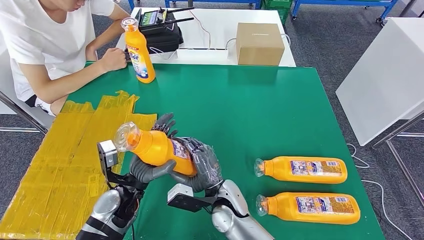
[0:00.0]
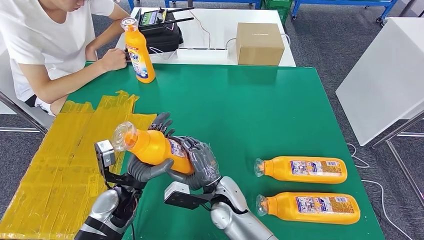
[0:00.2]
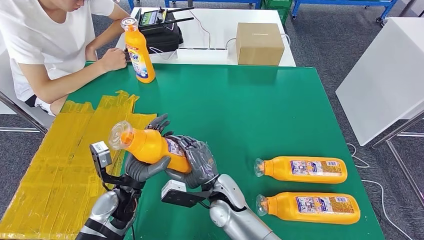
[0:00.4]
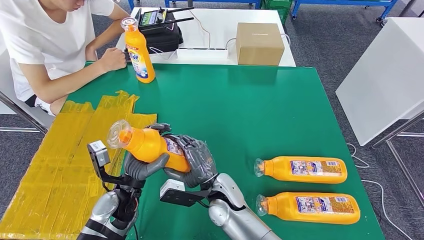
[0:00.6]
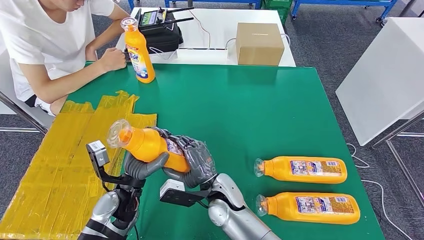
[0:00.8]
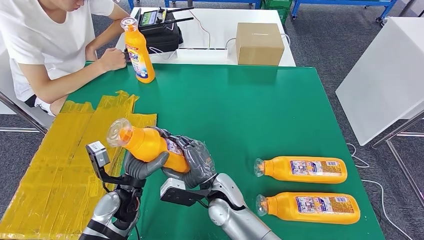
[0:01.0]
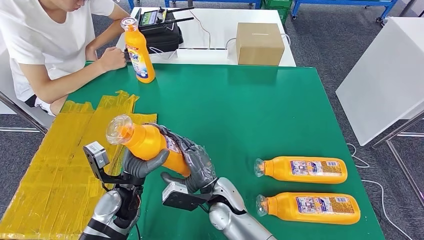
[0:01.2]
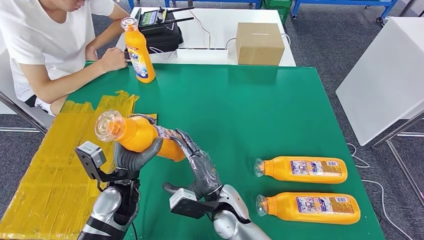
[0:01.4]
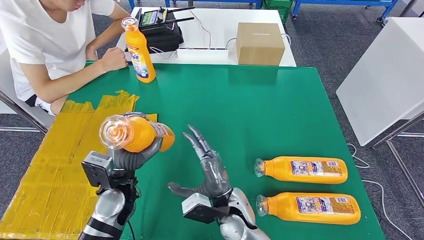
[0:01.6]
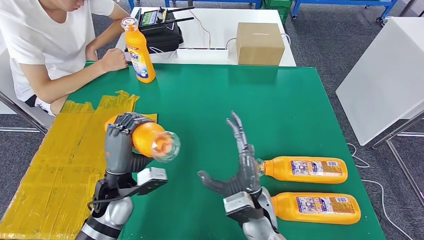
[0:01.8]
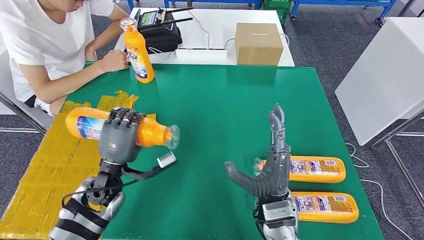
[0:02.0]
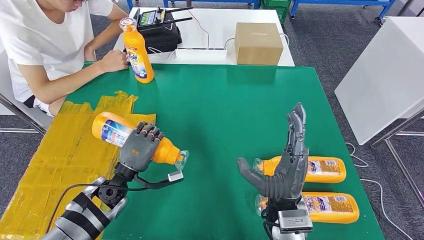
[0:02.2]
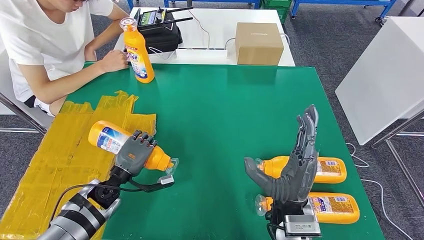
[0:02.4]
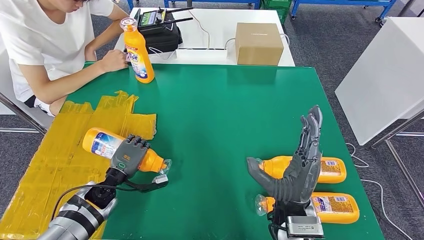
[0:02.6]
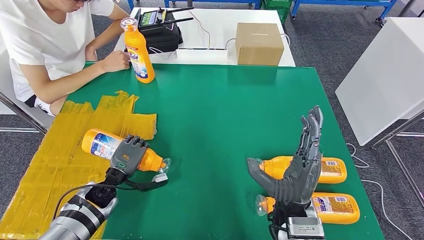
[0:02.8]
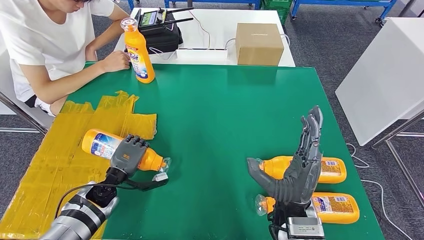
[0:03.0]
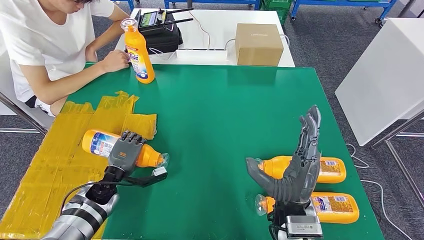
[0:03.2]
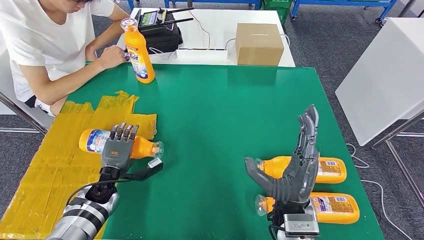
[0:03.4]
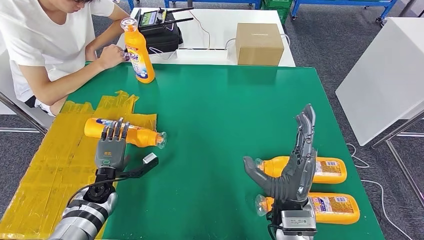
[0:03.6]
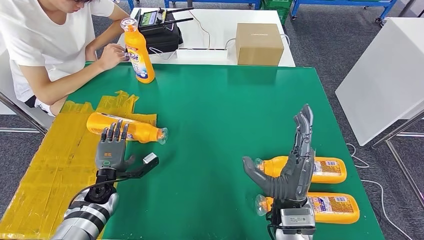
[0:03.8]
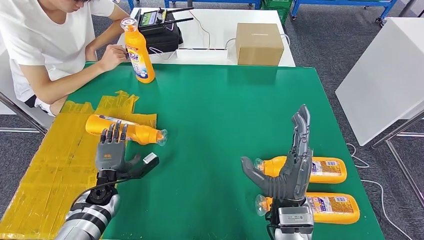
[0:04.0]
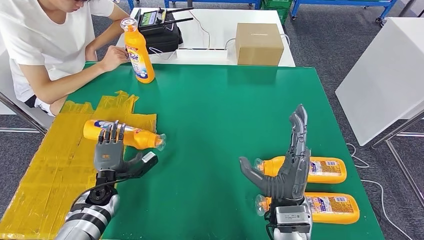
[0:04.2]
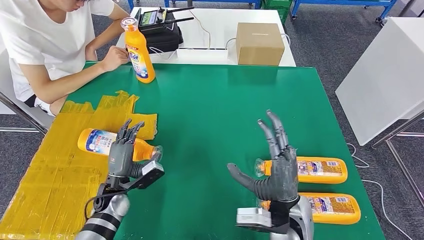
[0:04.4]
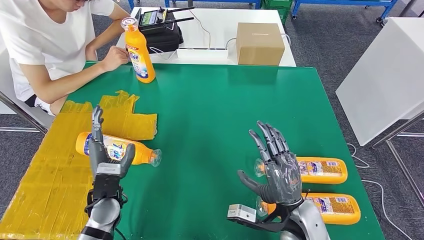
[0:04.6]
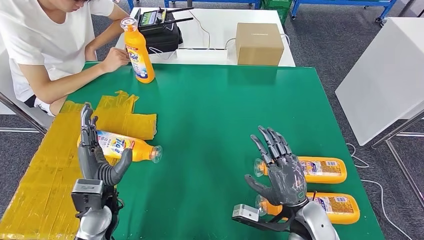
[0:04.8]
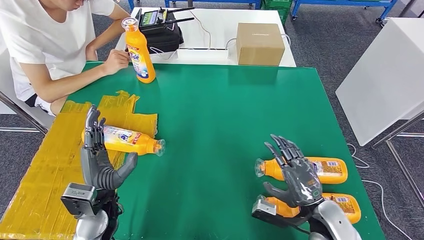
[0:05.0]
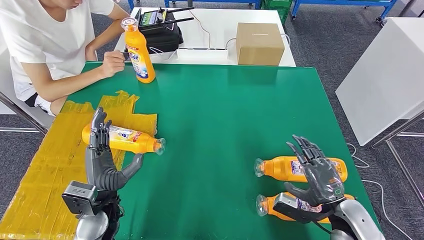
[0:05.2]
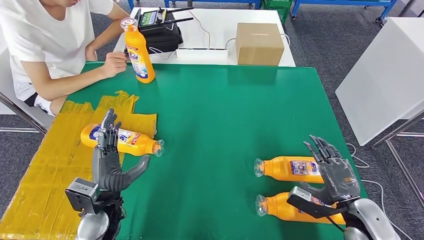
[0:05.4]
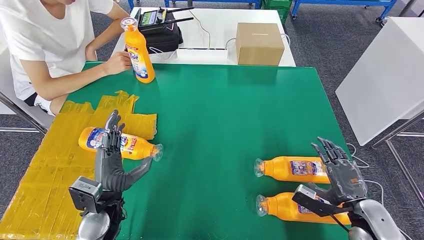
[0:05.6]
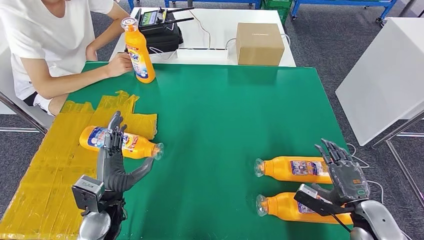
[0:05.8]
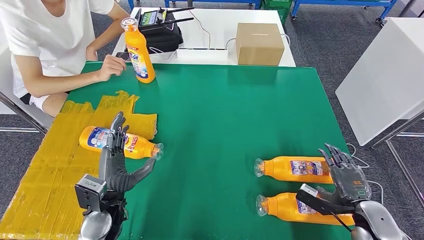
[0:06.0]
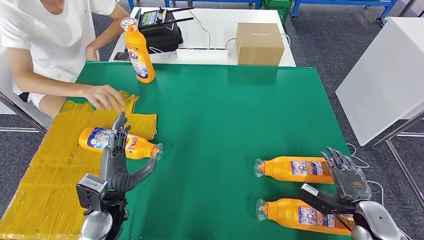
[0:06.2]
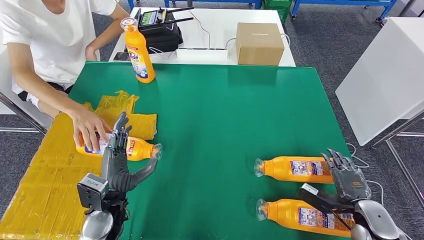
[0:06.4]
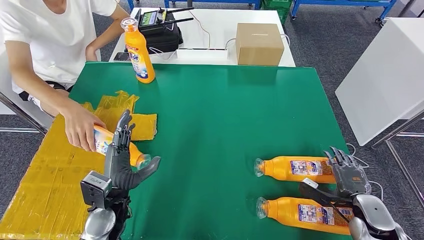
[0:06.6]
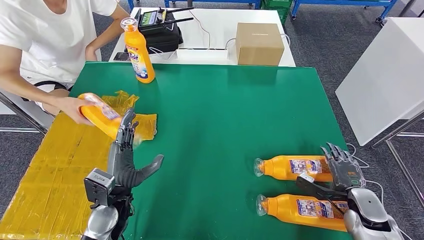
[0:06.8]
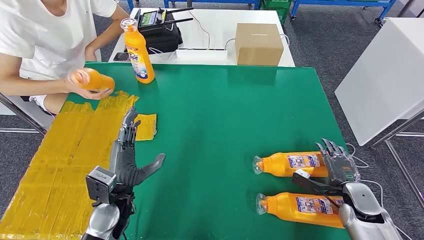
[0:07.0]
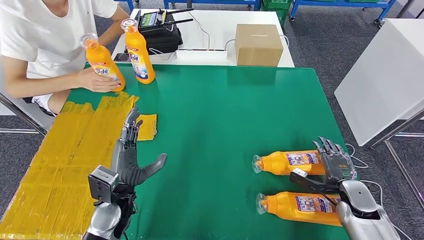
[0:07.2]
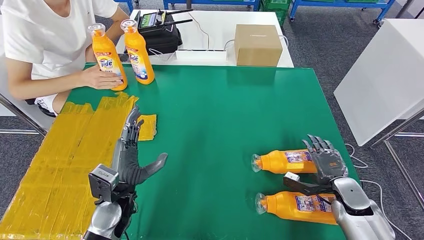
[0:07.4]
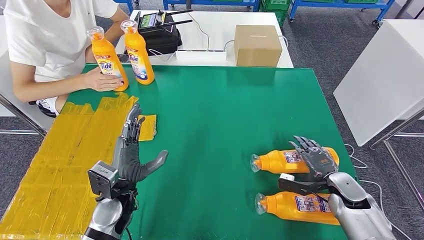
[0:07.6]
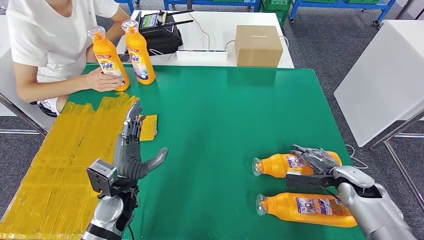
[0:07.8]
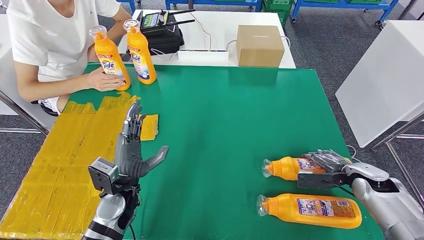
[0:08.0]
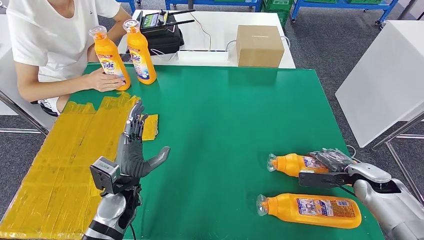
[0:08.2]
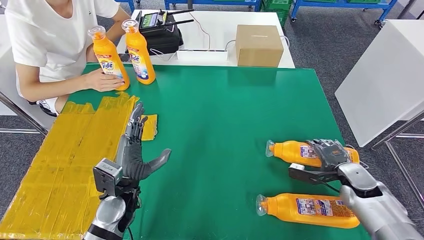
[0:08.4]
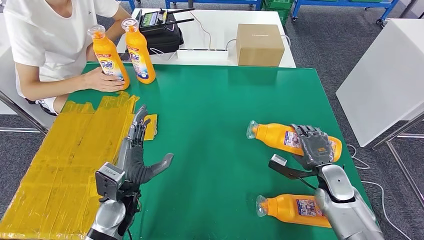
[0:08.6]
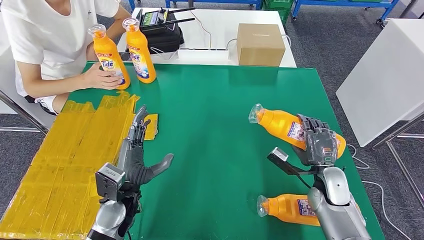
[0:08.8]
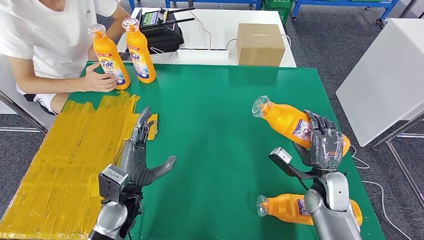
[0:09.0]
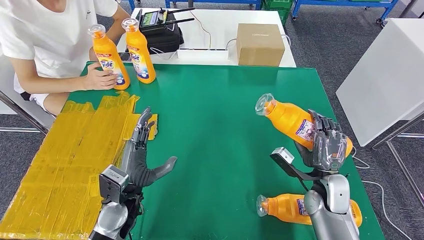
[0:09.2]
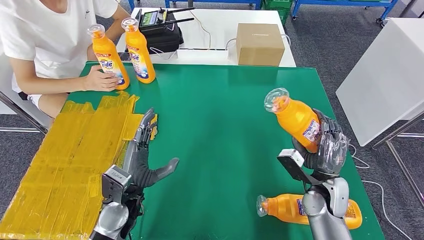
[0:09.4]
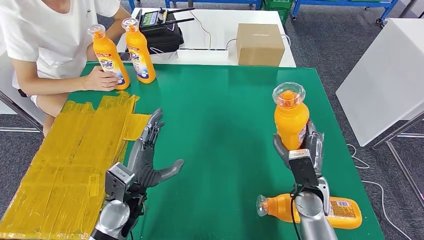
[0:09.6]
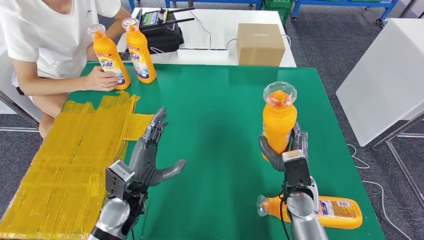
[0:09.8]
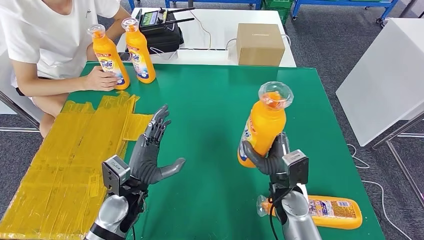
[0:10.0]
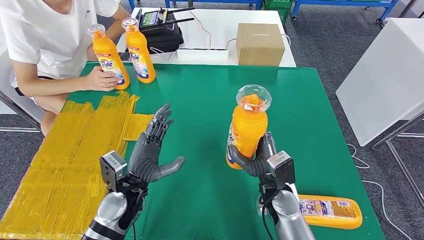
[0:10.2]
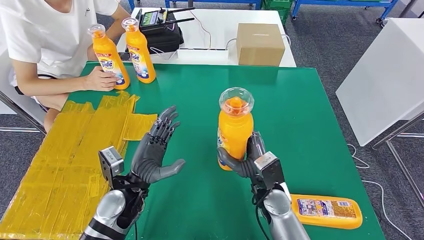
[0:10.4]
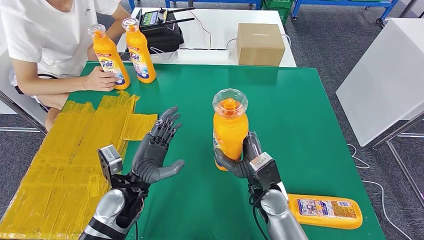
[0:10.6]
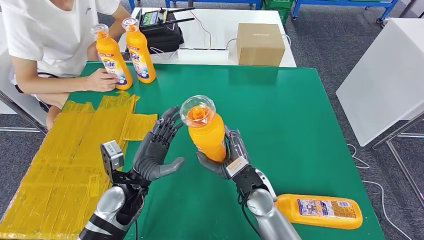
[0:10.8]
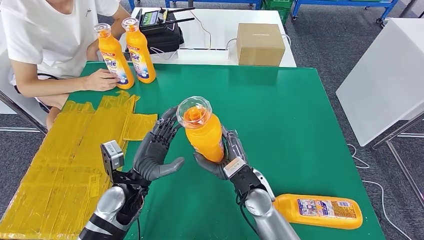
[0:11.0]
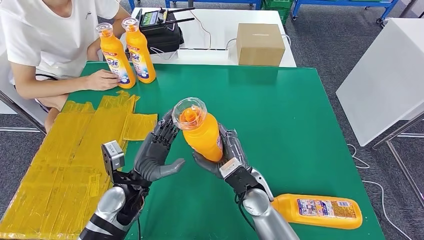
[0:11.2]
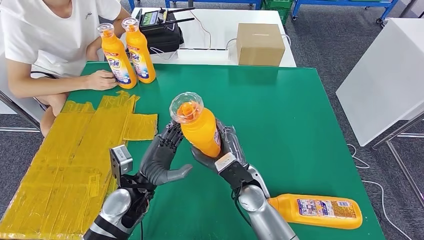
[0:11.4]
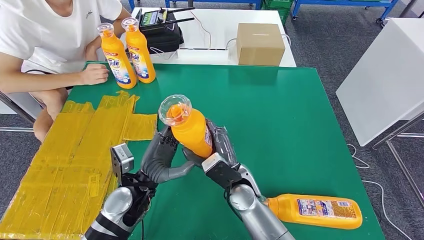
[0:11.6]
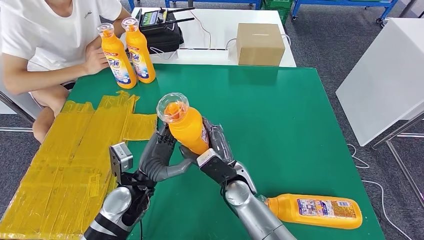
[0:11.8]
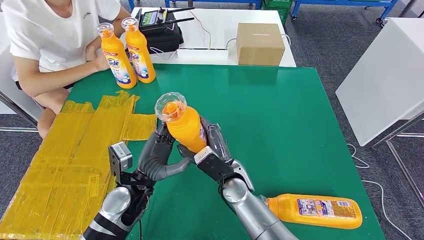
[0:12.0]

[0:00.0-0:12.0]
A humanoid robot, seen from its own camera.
Step, 0:00.0 to 0:02.8: Flip the fast-moving consumer goods bottle to the front side.
Step, 0:03.8 to 0:09.8: Pick up the fast-moving consumer goods bottle from the table.
0:01.6 to 0:03.0: The left hand moves downward and to the left, some 15 cm. The right hand heads to the right and upward, covering approximately 15 cm.
0:04.4 to 0:06.0: The left hand shifts some 10 cm upward and backward. Meanwhile the right hand moves to the right, roughly 20 cm.
0:09.0 to 0:10.4: The right hand is displaced to the left by some 15 cm.
0:10.4 to 0:12.0: The right hand shifts some 10 cm to the left.

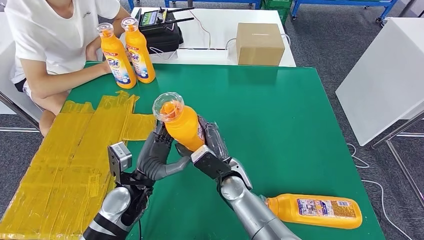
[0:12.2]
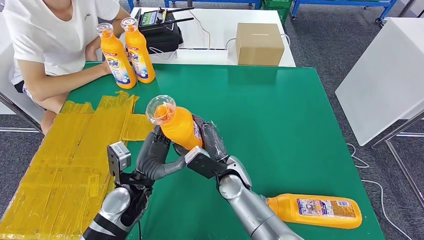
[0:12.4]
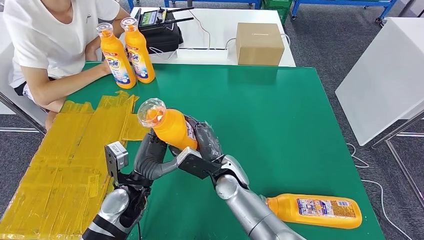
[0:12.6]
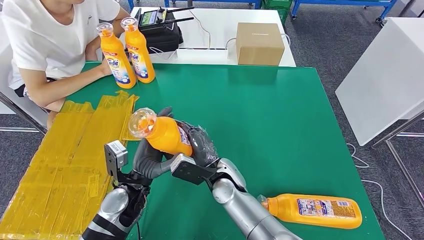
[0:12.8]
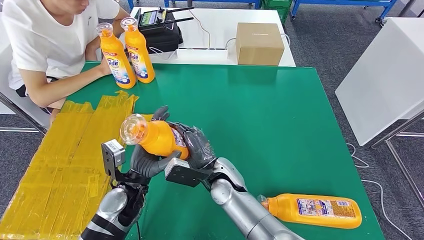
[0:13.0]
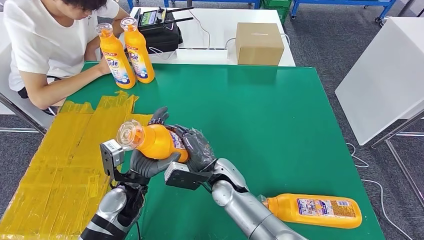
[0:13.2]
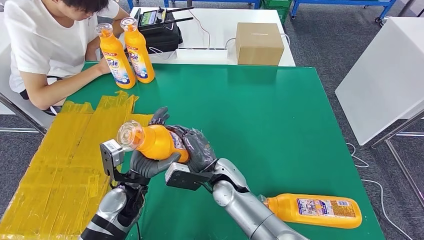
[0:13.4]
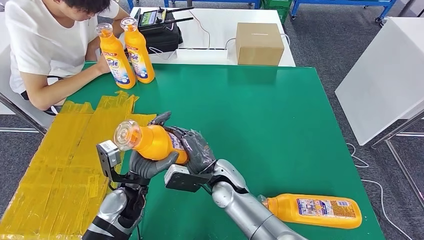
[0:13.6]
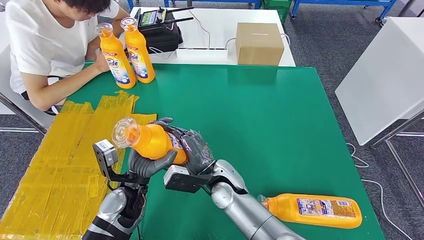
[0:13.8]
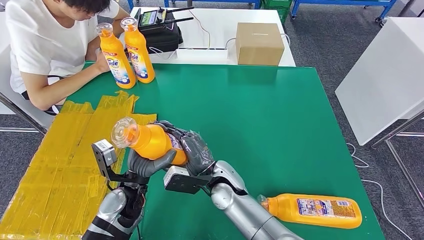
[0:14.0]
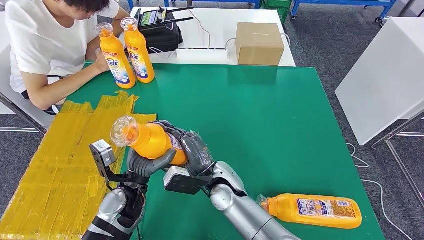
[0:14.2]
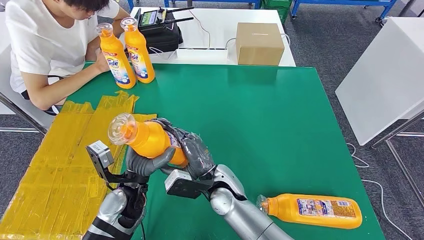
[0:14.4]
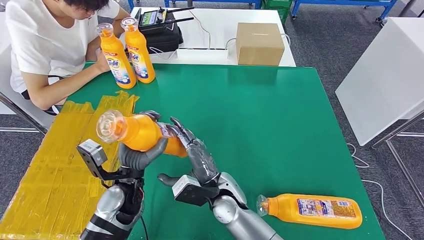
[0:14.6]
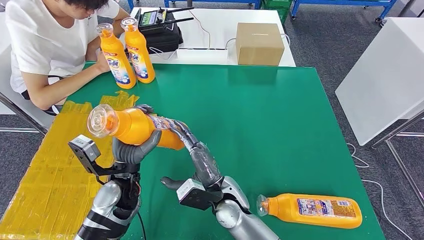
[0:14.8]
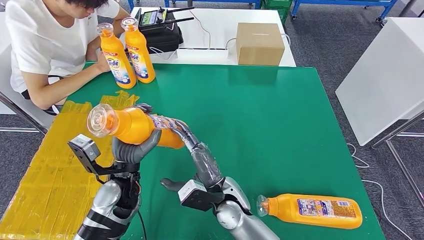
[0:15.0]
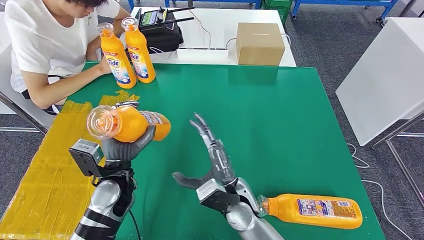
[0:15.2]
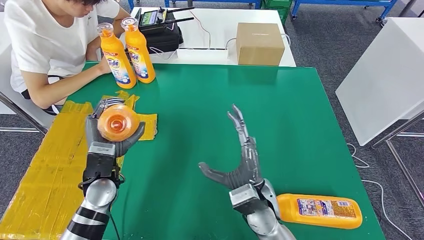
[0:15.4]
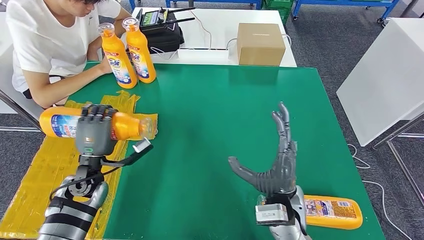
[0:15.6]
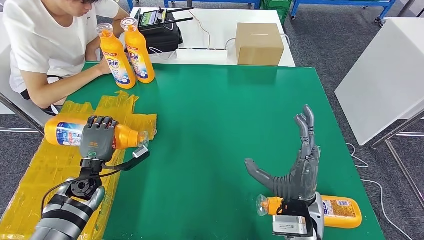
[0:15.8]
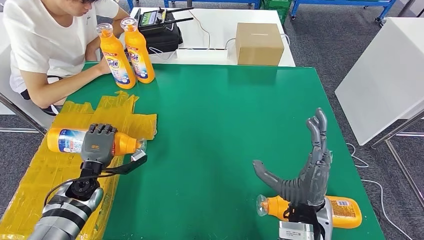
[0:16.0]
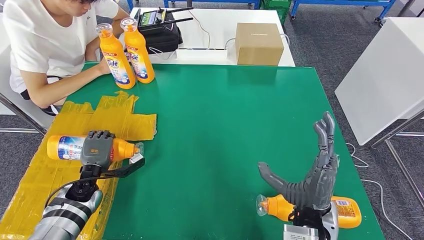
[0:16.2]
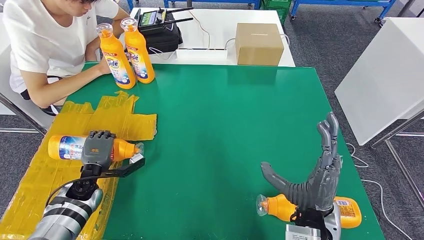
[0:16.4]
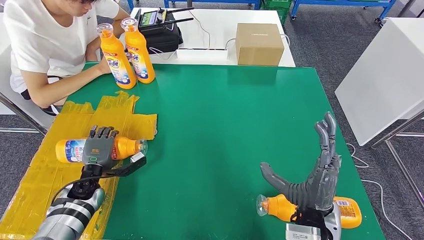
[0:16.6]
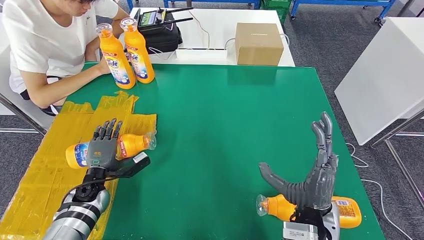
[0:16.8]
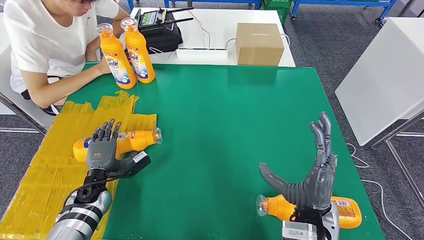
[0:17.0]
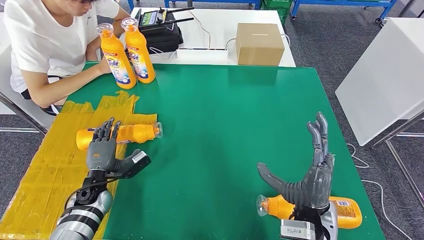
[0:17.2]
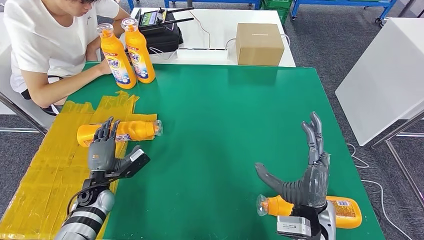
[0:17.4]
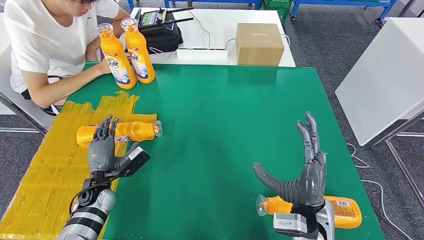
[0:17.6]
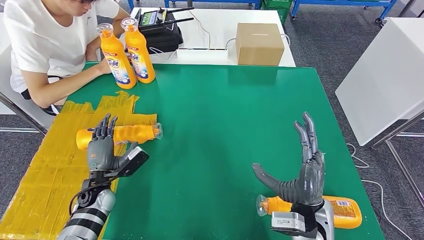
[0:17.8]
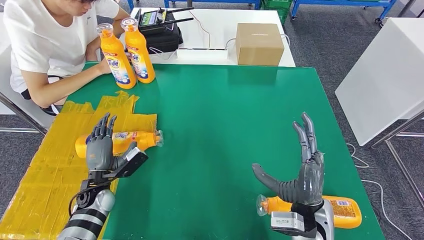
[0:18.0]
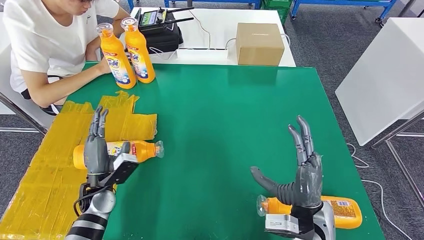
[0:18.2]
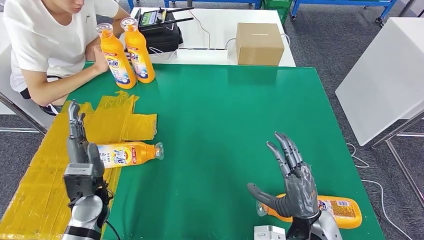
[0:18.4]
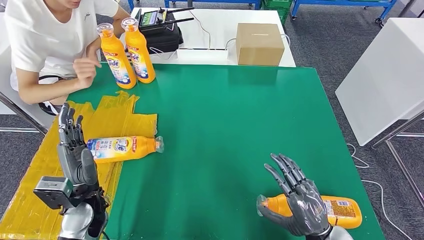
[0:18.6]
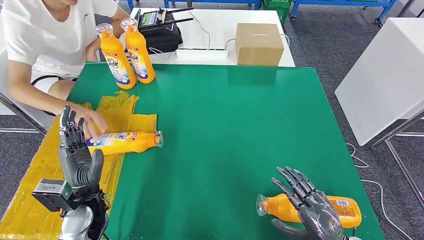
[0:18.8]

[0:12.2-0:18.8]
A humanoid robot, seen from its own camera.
Step, 0:12.2 to 0:16.8: Flip the fast-moving consumer goods bottle to the front side.
0:13.8 to 0:15.4: The right hand shifts some 10 cm to the right, while the left hand shifts some 5 cm to the left.
0:15.4 to 0:17.2: The right hand goes approximately 10 cm to the right, while the left hand shifts some 15 cm downward and to the left.
0:17.2 to 0:18.8: The left hand moves upward, backward and to the right, some 15 cm; the right hand is displaced to the right and backward by approximately 10 cm.
